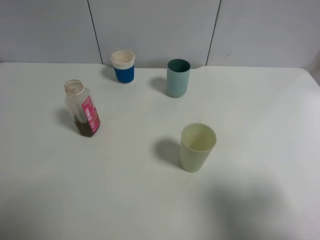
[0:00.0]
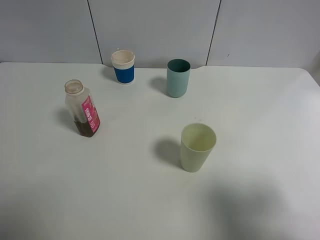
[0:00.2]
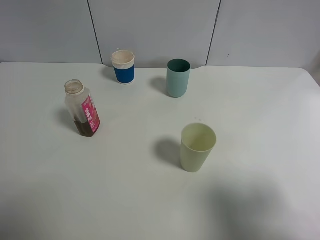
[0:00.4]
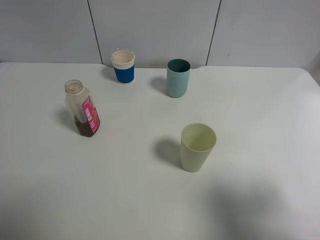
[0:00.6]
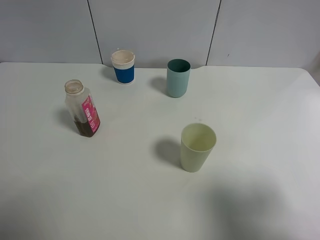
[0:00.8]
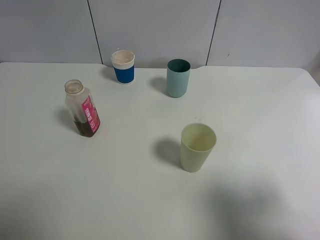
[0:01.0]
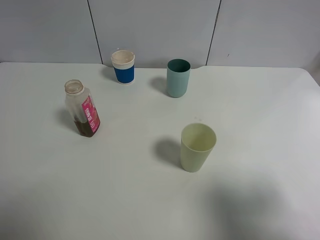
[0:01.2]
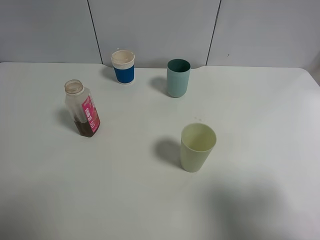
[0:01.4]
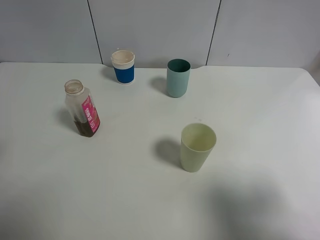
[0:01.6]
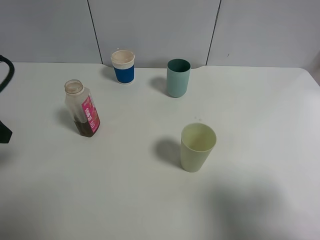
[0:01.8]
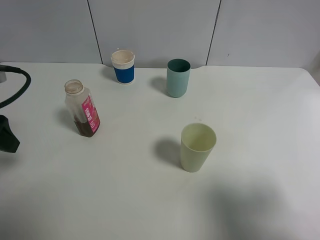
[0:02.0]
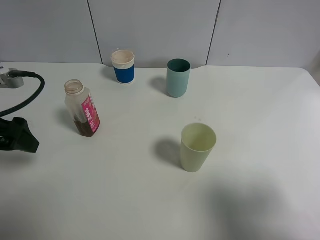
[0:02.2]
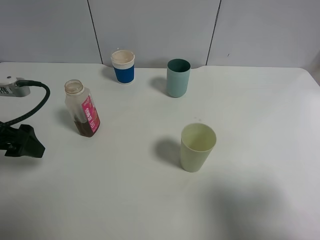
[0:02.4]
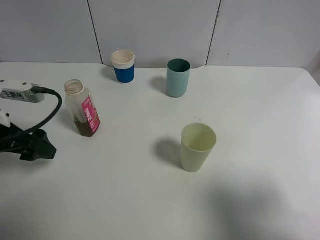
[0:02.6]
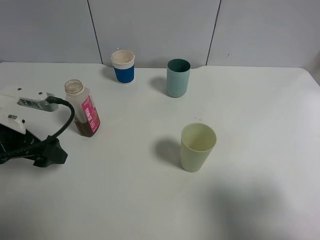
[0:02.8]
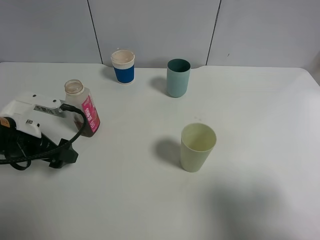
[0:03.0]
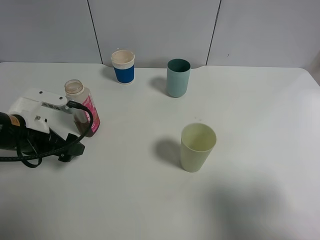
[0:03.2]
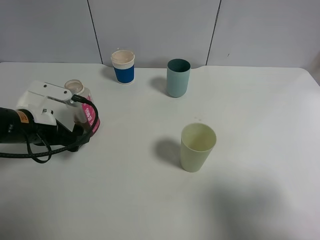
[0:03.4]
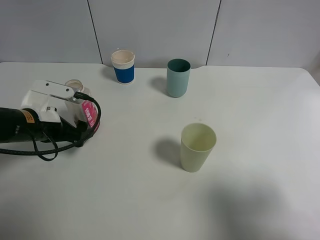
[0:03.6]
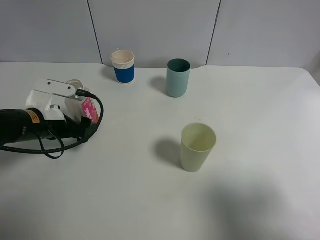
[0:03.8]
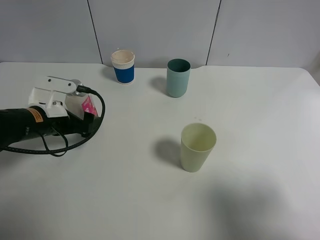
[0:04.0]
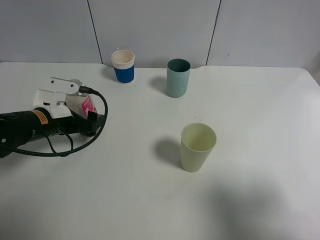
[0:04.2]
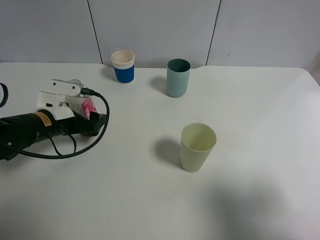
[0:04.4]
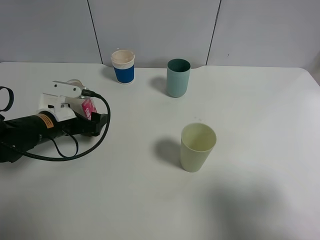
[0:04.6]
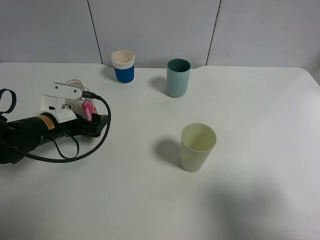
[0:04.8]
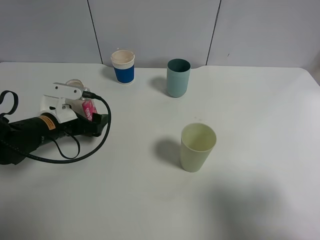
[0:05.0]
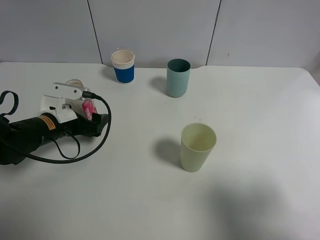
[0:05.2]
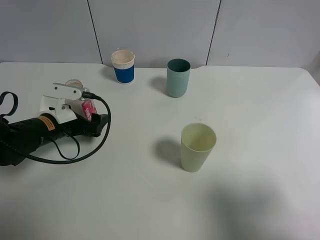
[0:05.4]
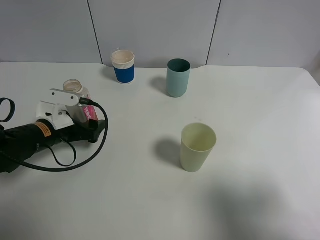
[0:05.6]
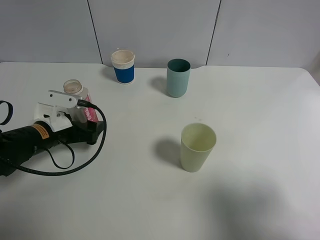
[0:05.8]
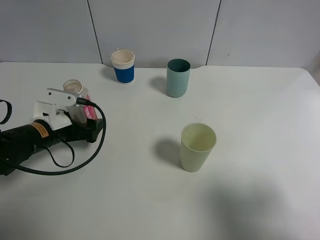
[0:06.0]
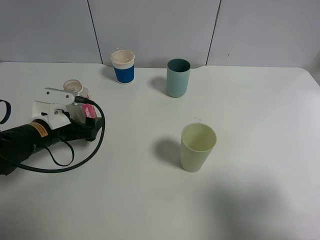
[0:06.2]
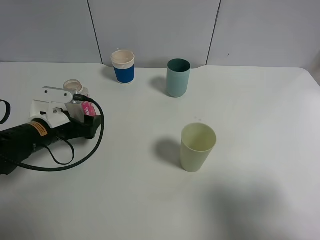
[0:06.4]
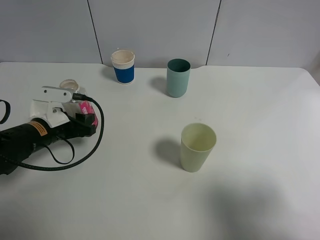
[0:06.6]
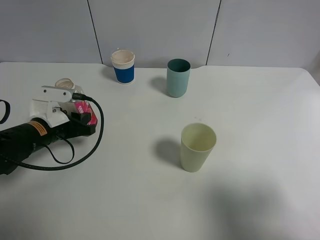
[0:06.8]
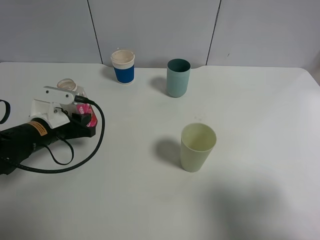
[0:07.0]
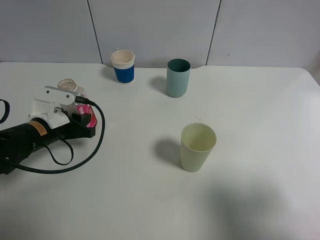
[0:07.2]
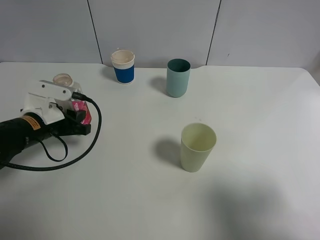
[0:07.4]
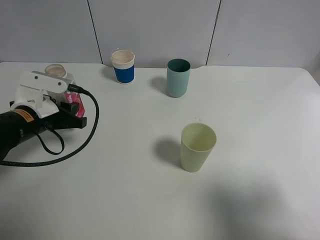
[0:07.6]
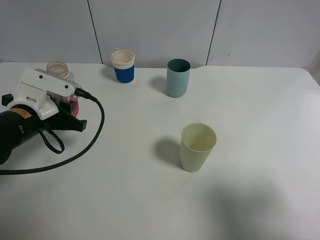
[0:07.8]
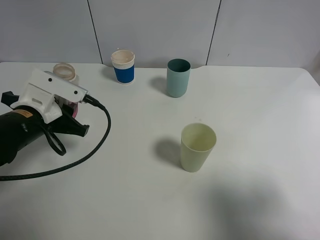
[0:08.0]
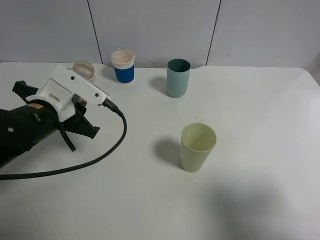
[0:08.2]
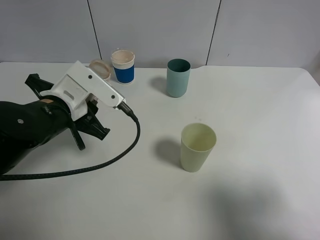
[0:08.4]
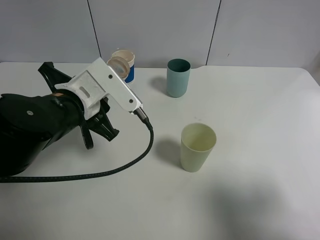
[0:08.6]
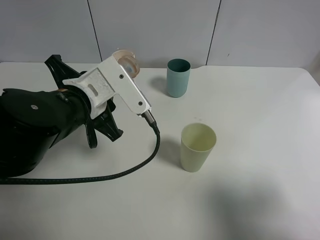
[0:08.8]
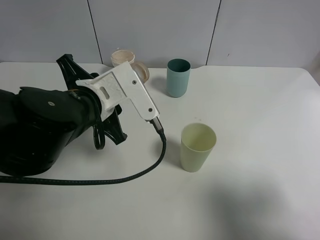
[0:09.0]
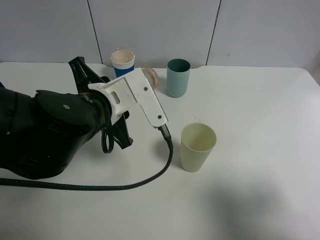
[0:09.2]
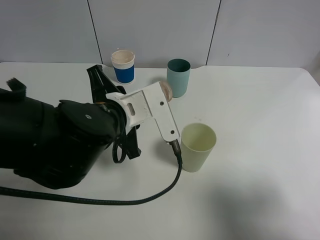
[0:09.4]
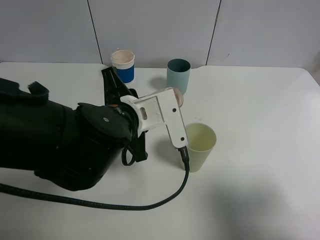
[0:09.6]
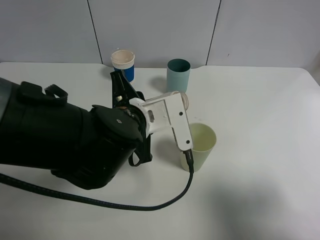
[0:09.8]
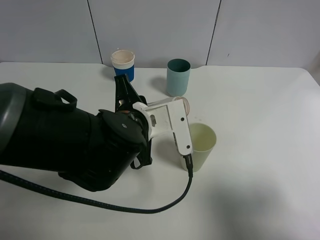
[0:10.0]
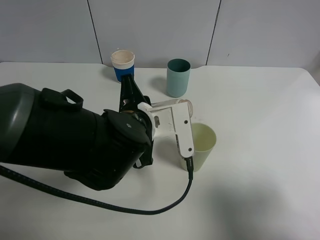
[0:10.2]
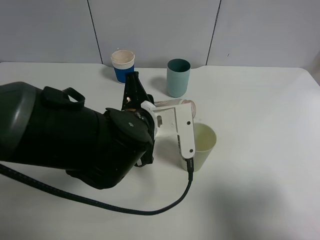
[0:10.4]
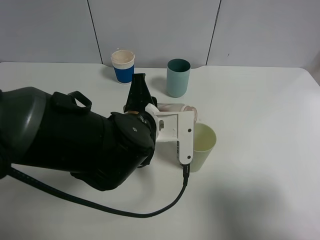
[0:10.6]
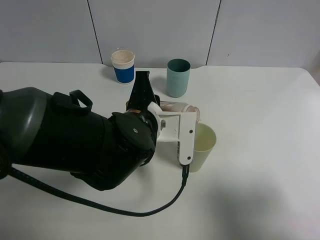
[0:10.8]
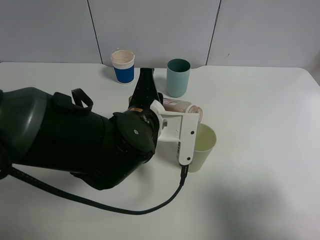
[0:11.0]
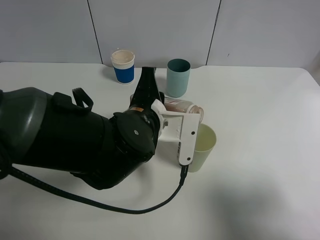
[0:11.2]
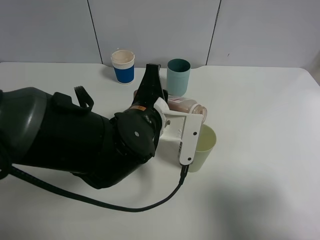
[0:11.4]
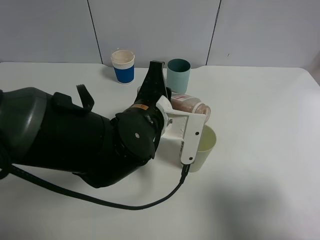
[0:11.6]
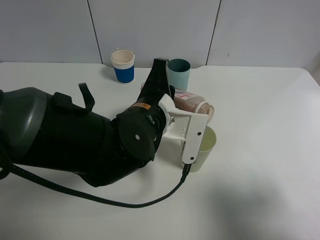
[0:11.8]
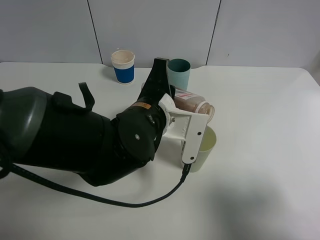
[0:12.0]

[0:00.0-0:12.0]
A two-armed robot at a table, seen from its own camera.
Task of the whole recording: use a clamp to hold the bottle of the drink, pour the beverage into a random cup, then clamp the cup containing the drink and pour the drink into another random cup.
Step, 0:00.0 to 0:07.4: Pick up the drink bottle with left gripper.
0:01.6 to 0:03.0: The left gripper is displaced downward and forward by roughly 15 cm.
0:03.0 to 0:04.4: The left gripper goes approximately 5 cm forward.
0:04.4 to 0:06.0: The grippers stay close to where they were, moving slightly.
0:06.0 to 0:07.6: The left gripper closes its fingers.
0:07.6 to 0:09.0: The left gripper shifts roughly 15 cm to the right and upward.
0:09.0 to 0:10.4: The left gripper travels to the right by roughly 5 cm.

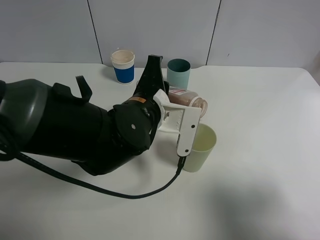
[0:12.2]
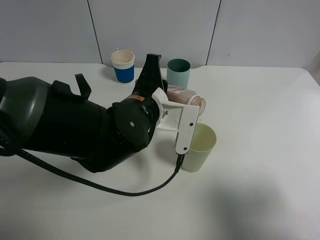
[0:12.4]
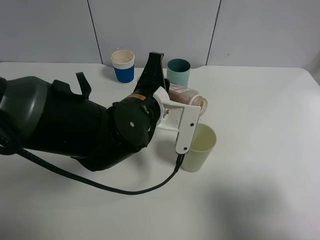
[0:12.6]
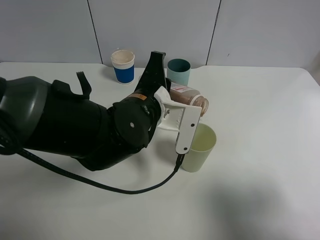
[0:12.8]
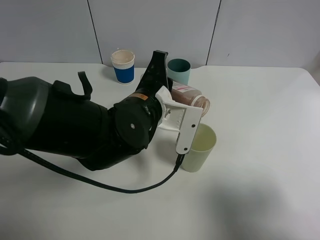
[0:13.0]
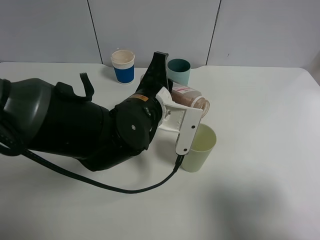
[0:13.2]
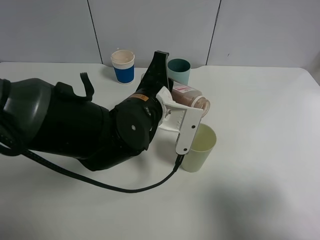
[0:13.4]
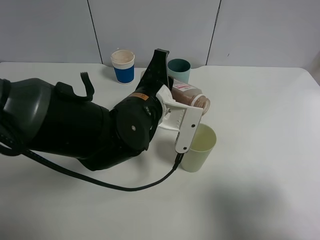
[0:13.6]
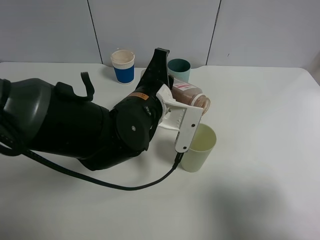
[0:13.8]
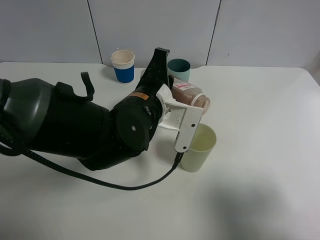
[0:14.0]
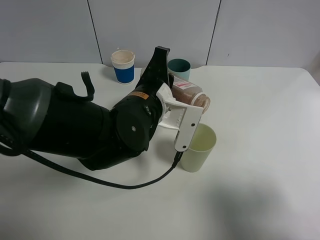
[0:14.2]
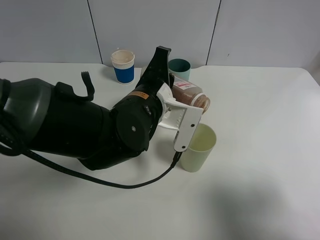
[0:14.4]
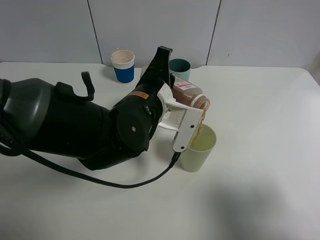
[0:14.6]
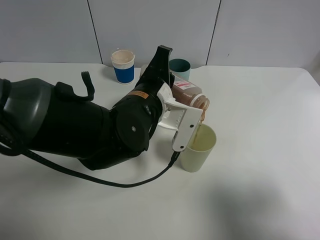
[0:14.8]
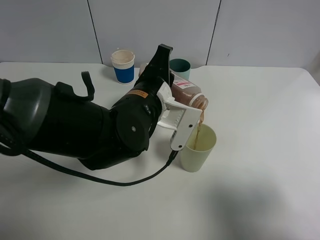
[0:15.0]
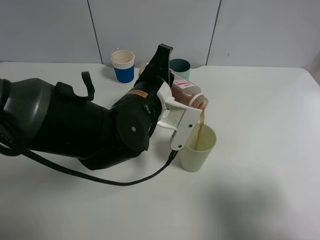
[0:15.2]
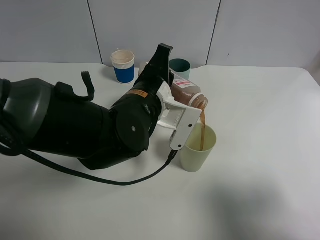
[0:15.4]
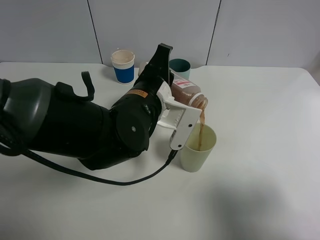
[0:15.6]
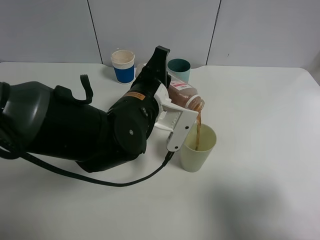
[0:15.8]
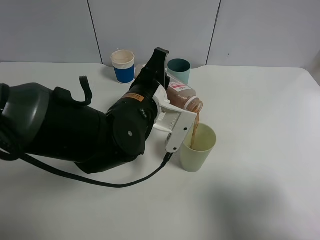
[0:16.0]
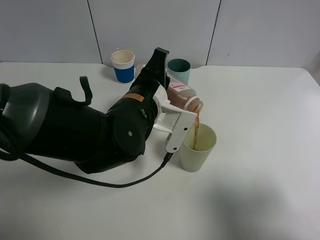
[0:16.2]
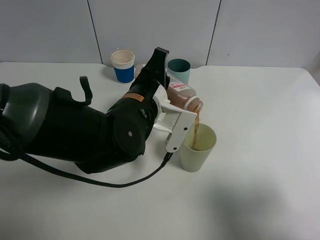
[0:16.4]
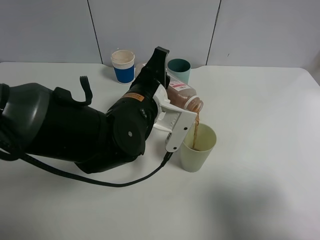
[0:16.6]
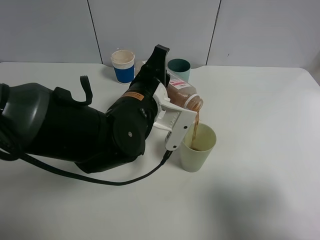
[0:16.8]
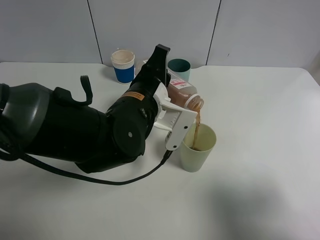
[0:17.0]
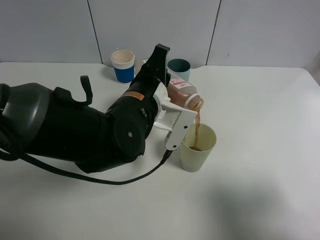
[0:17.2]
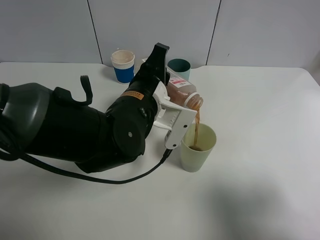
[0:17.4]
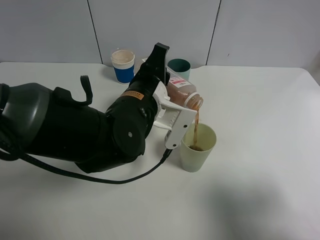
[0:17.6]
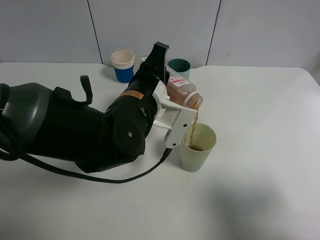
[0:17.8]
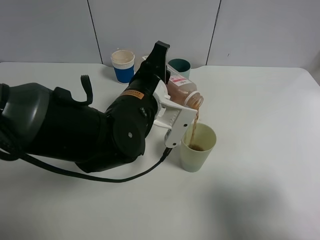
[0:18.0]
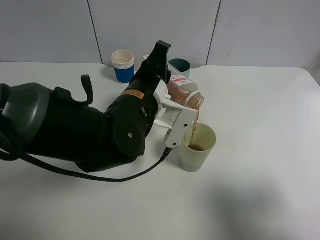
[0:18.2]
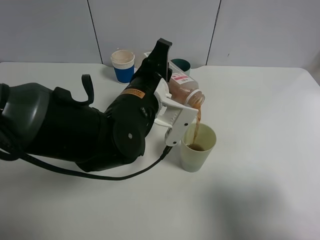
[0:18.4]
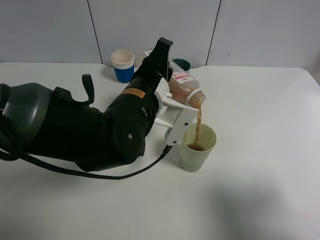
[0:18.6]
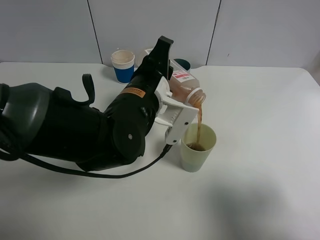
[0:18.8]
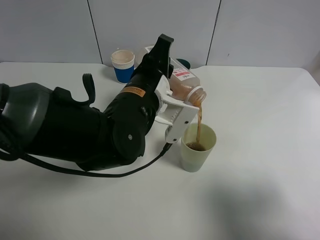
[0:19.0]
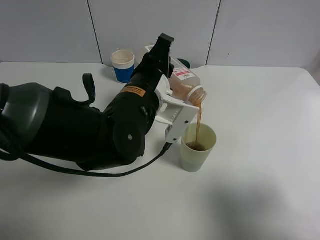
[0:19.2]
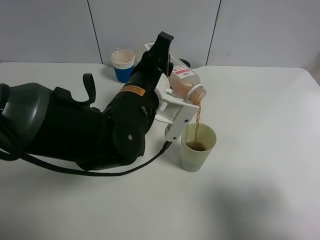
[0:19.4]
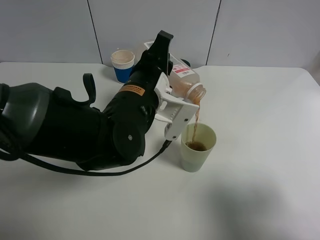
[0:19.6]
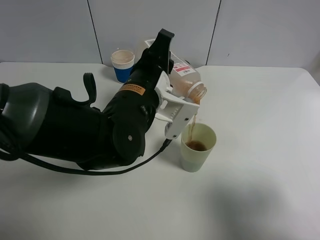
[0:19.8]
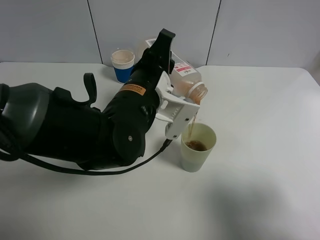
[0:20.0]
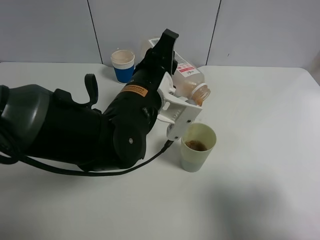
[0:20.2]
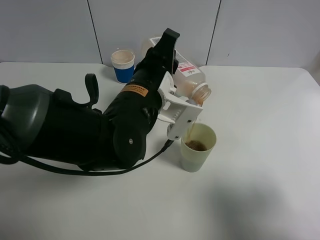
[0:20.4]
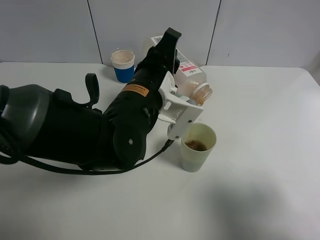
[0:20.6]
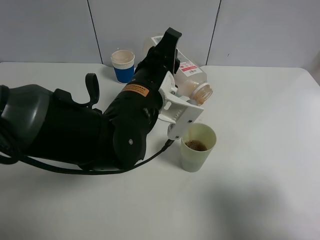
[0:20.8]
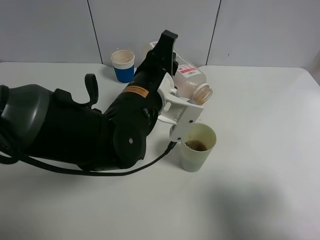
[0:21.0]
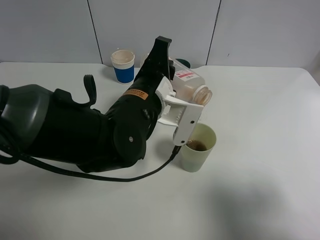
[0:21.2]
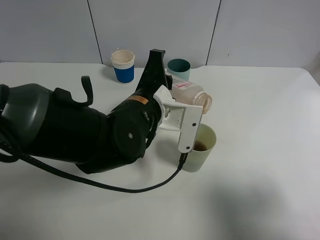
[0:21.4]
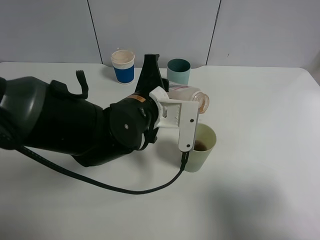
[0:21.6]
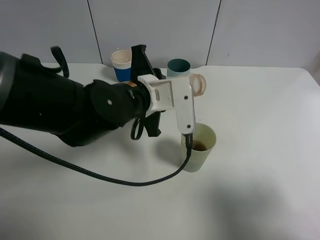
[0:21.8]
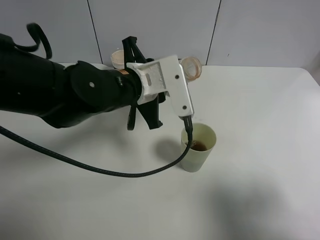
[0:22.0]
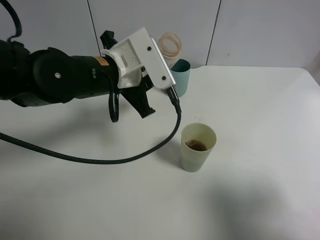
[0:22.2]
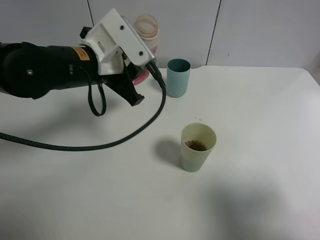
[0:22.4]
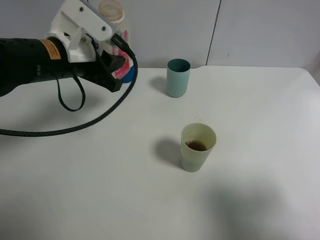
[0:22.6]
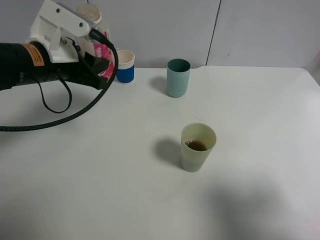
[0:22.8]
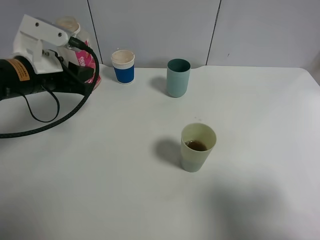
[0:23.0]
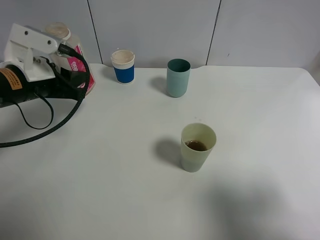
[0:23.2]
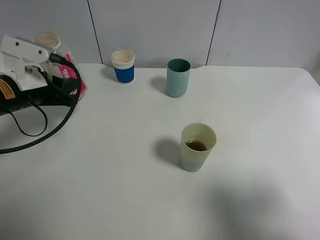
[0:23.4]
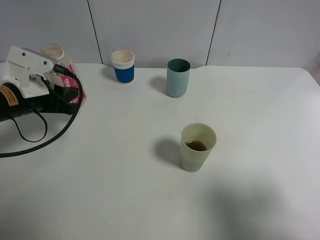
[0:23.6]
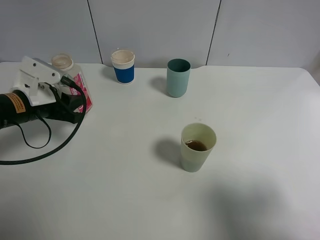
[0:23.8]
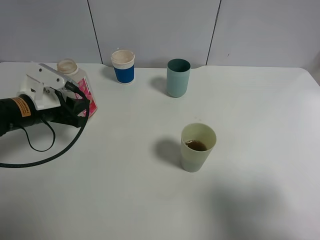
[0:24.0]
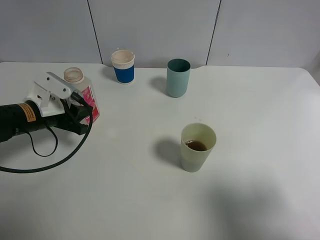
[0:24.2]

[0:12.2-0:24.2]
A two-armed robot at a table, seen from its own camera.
Task of the whole recording: use a clamp to hold the bottle of the drink, pour the beverage into a random cup, then clamp the cup containing the drink and pour the drink into another random cup.
Step, 0:12.2 to 0:21.2: Pour the drink into the green plastic cup with left gripper.
0:12.2 to 0:15.2: There are only small adjustments of the grippers.
0:15.2 to 0:16.6: The two grippers keep their place.
0:16.6 to 0:18.2: Neither gripper changes place.
0:18.2 to 0:21.2: The grippers make only small movements.
0:21.2 to 0:22.6: The left gripper travels to the left by about 15 cm.
0:22.6 to 0:24.2: The left gripper shifts roughly 15 cm downward and to the left.
